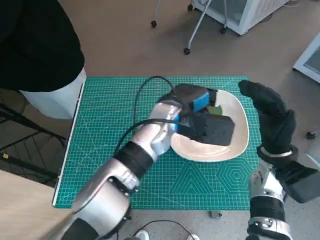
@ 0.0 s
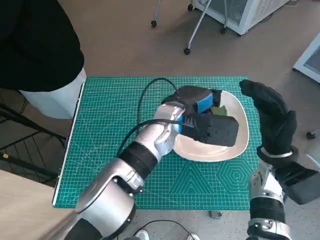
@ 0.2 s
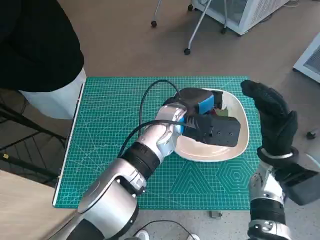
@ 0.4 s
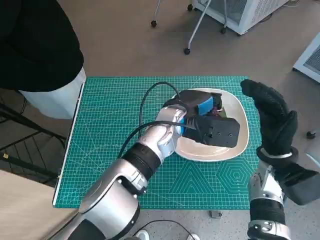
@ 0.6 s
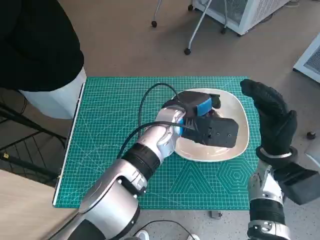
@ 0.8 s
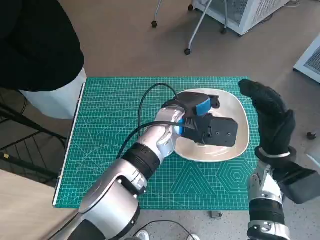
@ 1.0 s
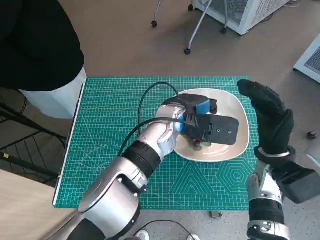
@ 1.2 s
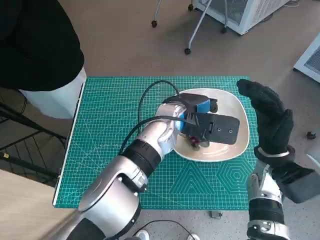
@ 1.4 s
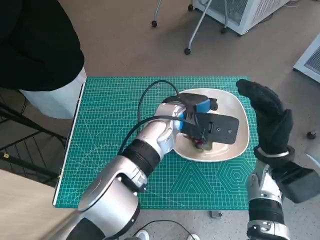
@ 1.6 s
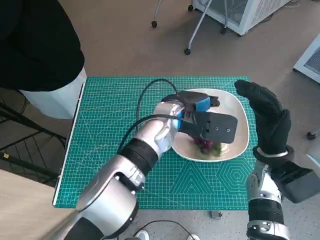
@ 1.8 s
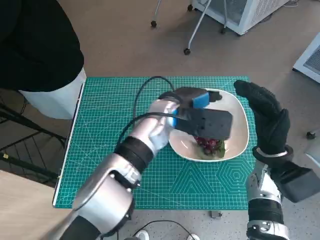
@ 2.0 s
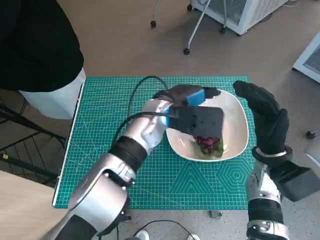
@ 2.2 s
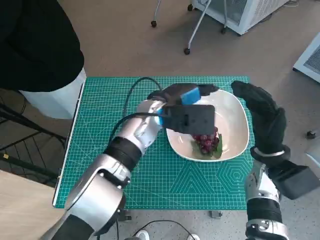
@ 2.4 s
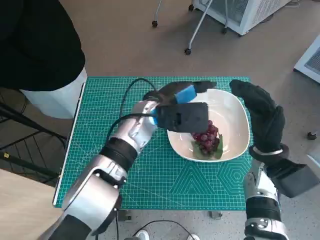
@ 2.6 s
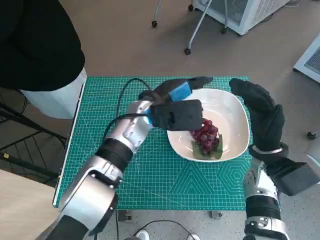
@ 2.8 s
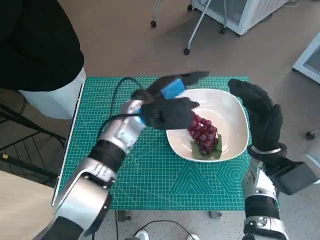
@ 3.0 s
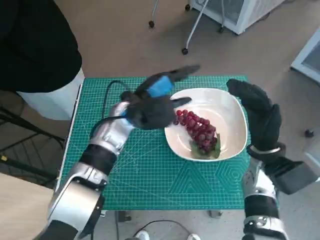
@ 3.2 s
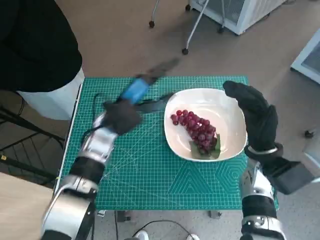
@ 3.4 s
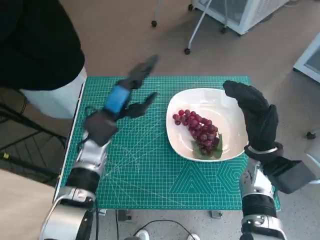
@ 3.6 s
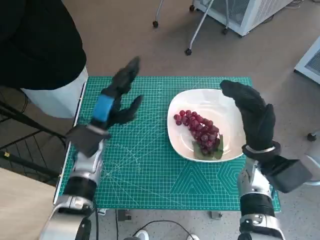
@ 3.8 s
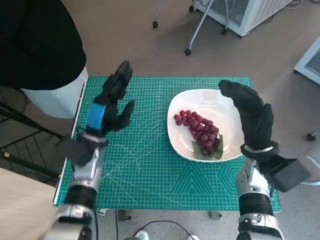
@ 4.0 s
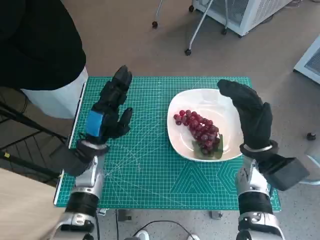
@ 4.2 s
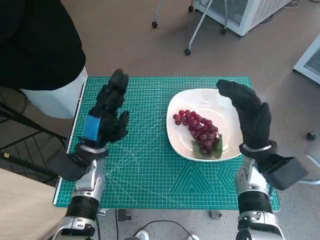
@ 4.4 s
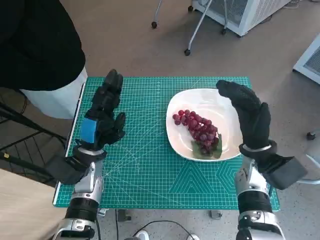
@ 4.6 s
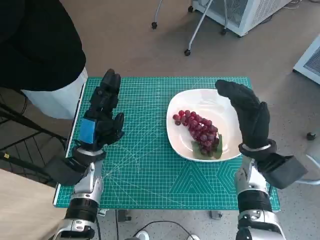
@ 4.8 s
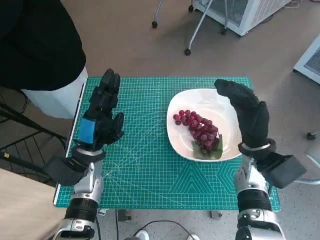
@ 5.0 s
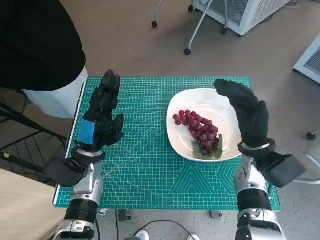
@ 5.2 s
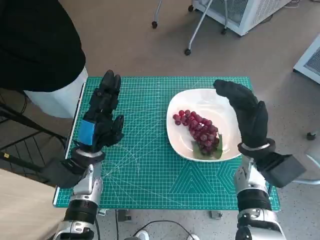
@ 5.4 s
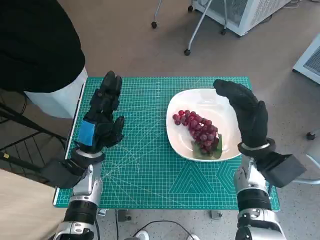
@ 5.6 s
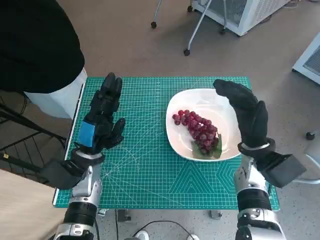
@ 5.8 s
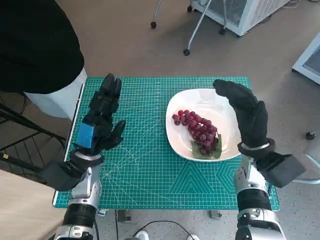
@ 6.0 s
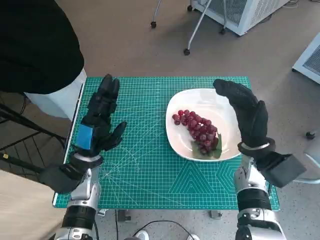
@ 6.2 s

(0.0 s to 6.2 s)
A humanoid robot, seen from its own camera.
Task of the whole recording: Pick up the grapes and put them on the plate.
Step, 0.0 s - 2.4 s: Place the grapes in the plate with left hand.
0.0 s - 1.6 s: The hands move only a little.
1.6 s - 3.2 s: The left hand goes approximately 10 cm to the left.
3.2 s - 4.6 s: The left hand moves to the left, downward and backward, some 15 cm.
4.6 s - 6.2 s: Both hands stay about where they are.
